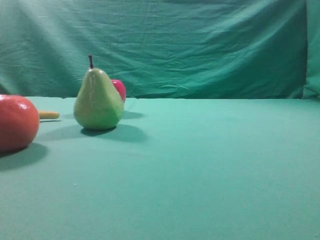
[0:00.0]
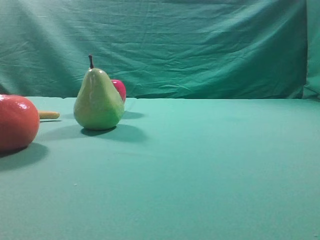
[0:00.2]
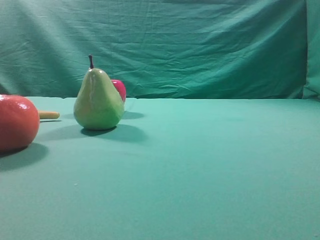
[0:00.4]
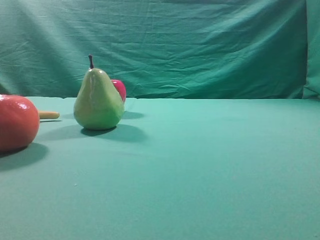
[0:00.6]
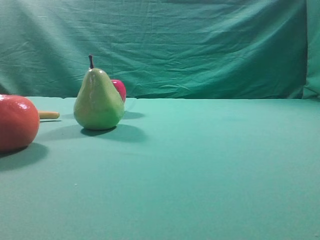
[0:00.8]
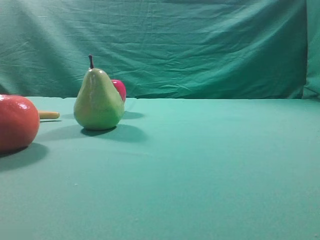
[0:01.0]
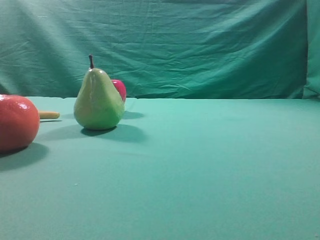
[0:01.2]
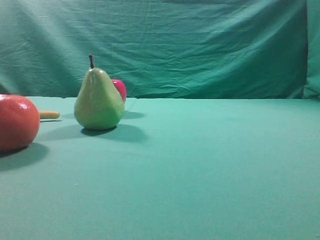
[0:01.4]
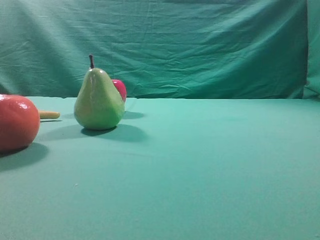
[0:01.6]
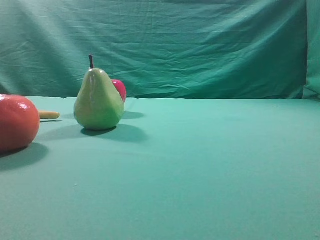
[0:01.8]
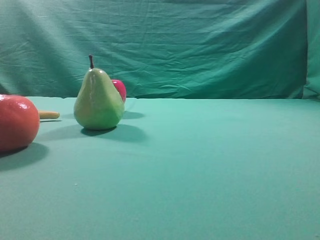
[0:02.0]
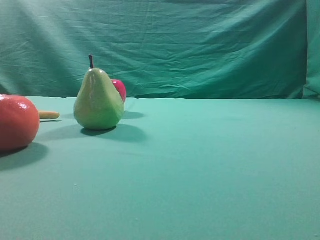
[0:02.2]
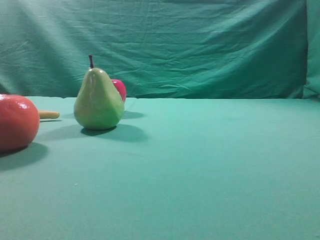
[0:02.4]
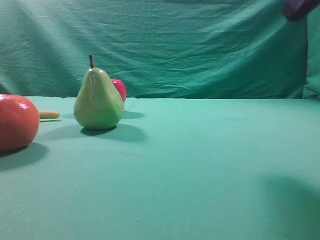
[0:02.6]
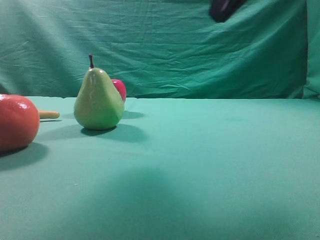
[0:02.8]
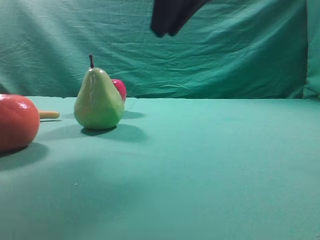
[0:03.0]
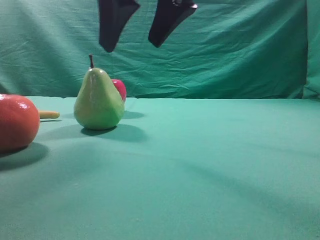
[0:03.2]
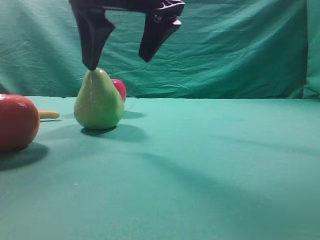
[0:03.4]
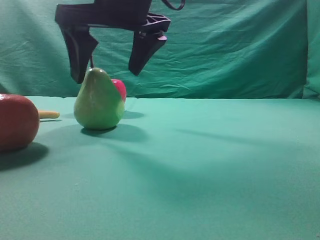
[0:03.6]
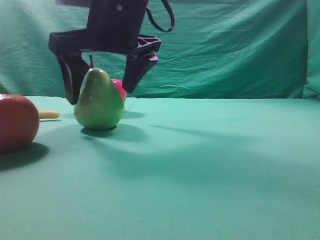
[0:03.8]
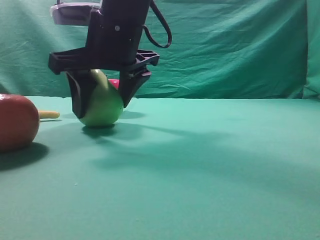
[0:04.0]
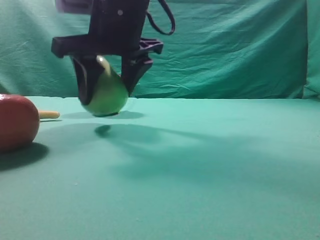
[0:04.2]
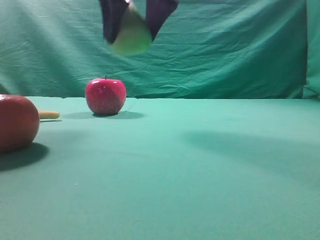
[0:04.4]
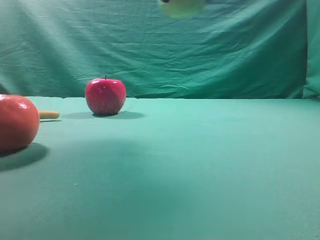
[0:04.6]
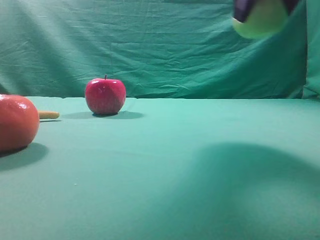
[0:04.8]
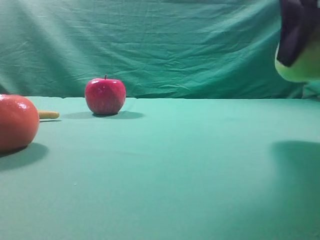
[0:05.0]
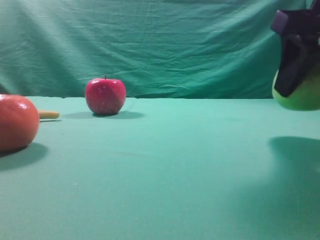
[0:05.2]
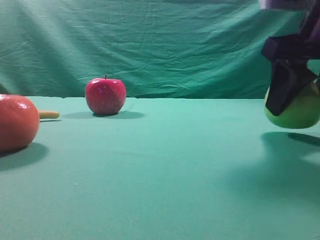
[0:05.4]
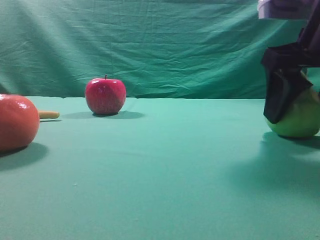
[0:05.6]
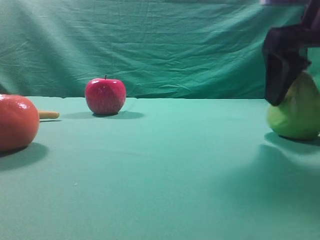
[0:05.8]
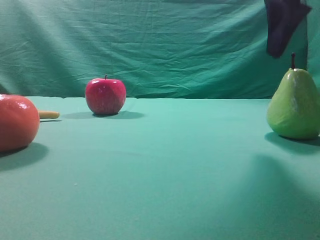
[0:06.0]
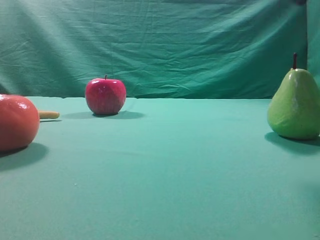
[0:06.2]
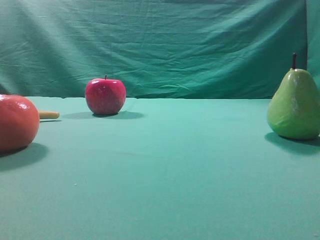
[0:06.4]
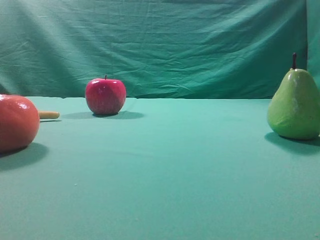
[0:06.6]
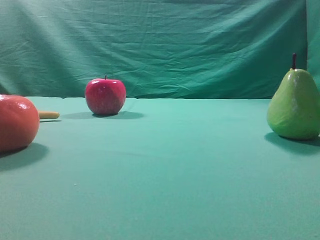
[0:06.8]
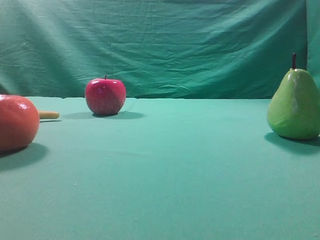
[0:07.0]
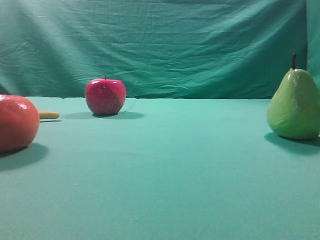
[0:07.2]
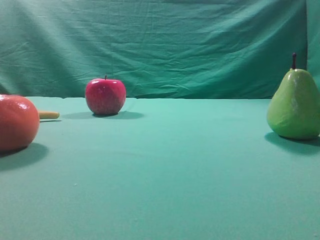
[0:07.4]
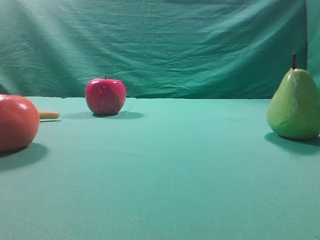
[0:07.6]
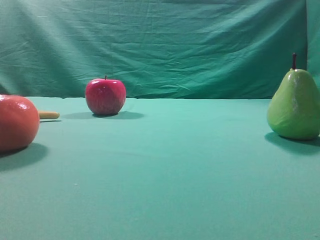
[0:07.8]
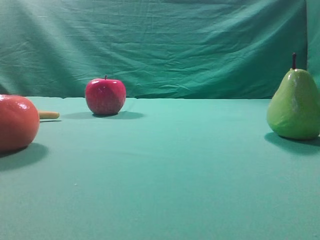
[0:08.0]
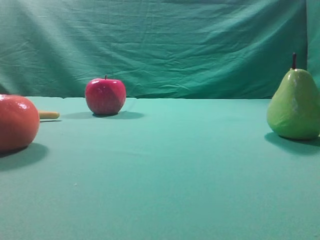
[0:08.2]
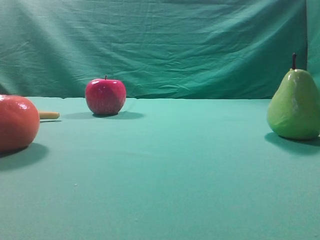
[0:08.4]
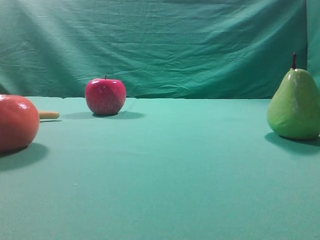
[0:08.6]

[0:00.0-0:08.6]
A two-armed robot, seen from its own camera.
Task of the whole recording: Grasp the pear and place it on one side of the table.
Step, 0:00.0 to 0:04.2: Grasp the high-fiber fruit.
Step, 0:04.4 to 0:06.0: Place it on the right side of the table.
